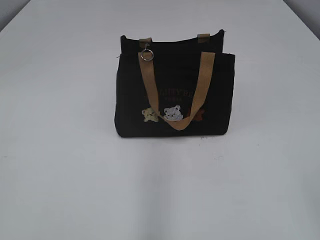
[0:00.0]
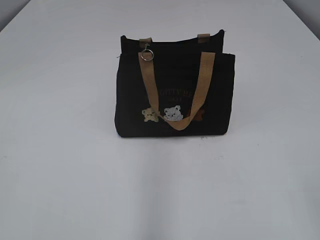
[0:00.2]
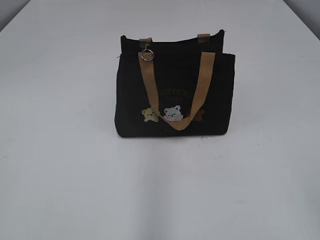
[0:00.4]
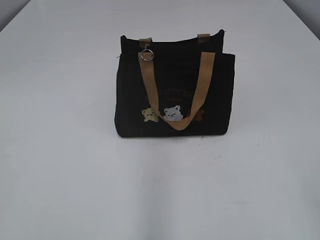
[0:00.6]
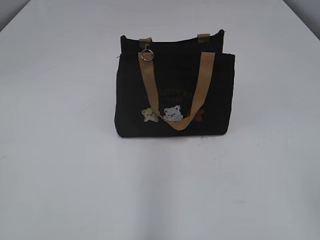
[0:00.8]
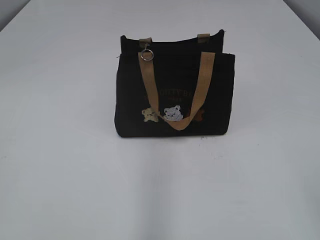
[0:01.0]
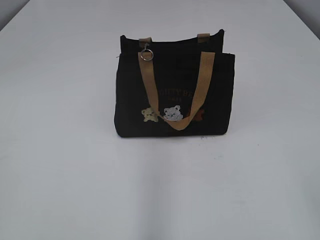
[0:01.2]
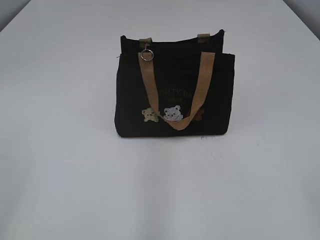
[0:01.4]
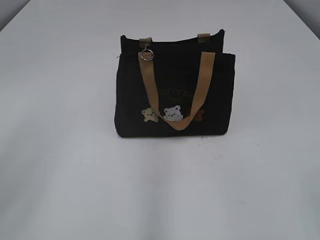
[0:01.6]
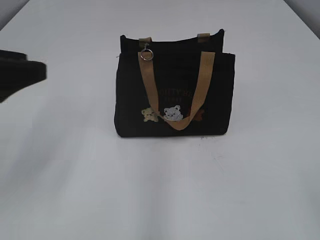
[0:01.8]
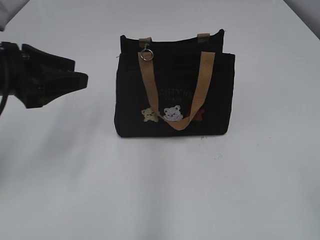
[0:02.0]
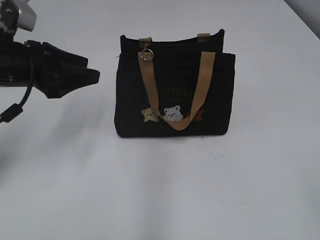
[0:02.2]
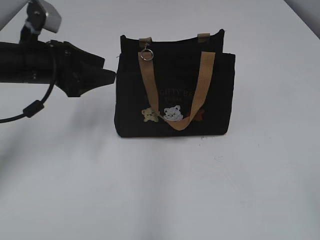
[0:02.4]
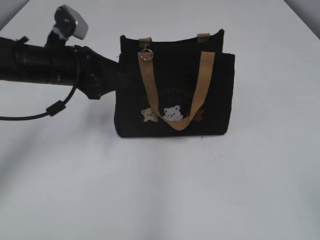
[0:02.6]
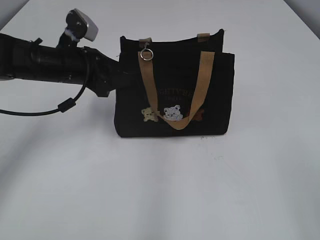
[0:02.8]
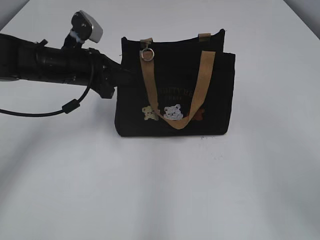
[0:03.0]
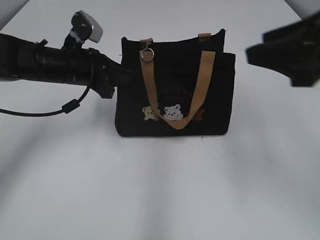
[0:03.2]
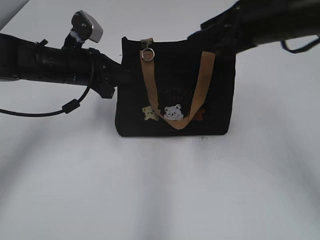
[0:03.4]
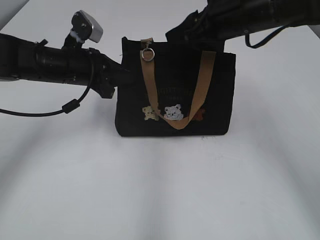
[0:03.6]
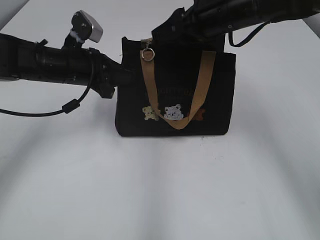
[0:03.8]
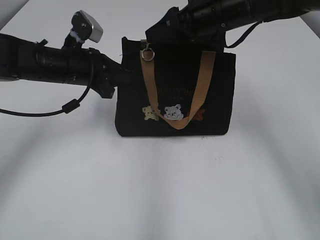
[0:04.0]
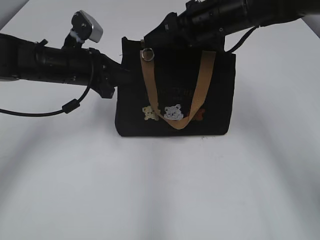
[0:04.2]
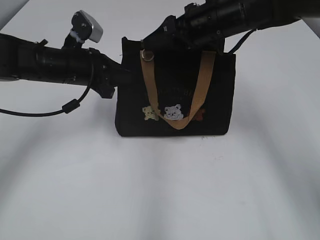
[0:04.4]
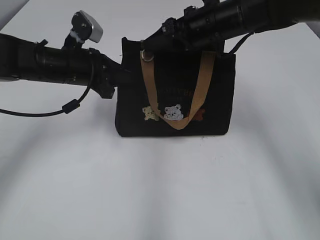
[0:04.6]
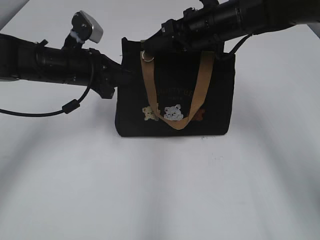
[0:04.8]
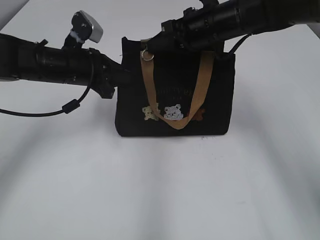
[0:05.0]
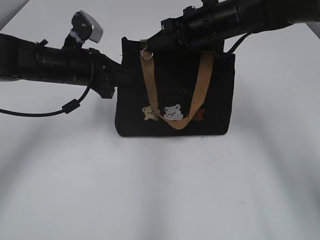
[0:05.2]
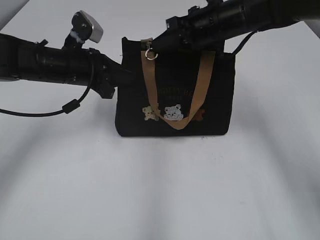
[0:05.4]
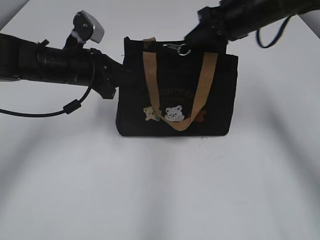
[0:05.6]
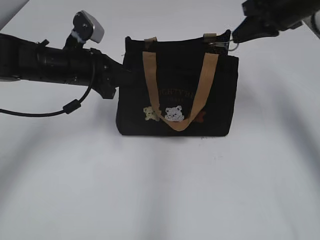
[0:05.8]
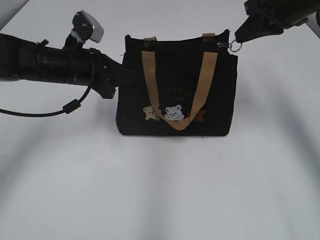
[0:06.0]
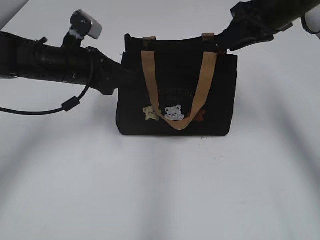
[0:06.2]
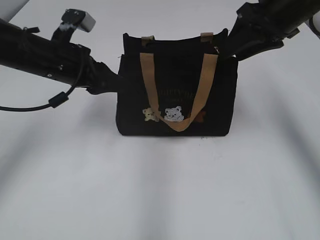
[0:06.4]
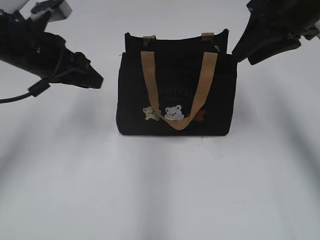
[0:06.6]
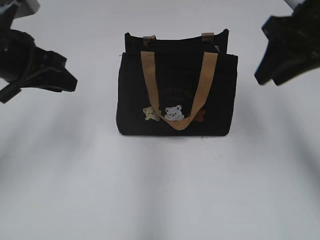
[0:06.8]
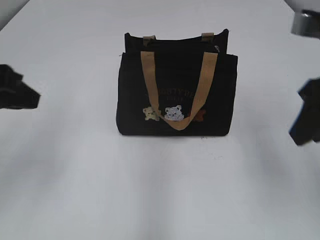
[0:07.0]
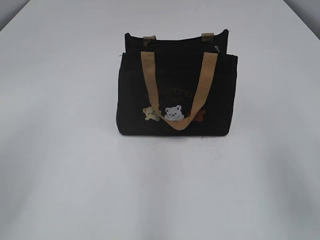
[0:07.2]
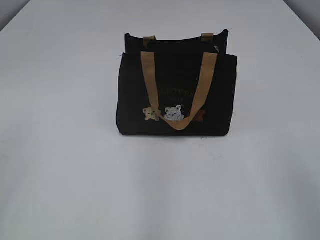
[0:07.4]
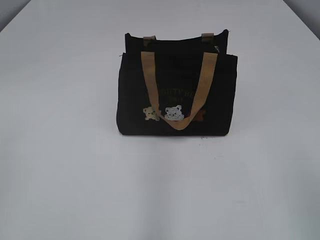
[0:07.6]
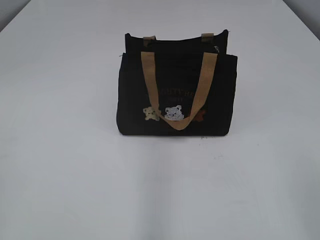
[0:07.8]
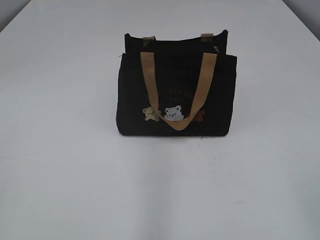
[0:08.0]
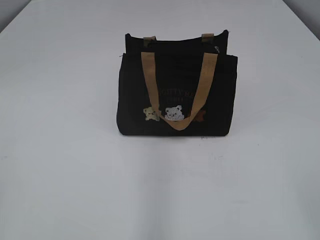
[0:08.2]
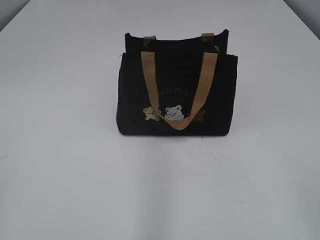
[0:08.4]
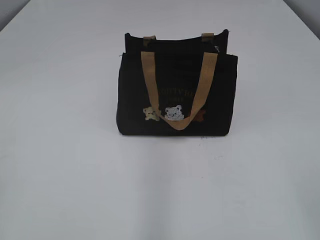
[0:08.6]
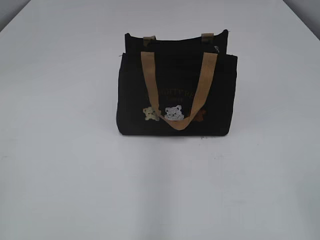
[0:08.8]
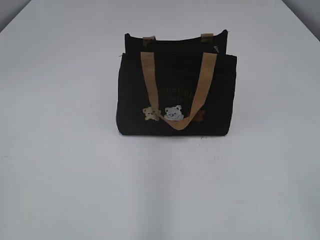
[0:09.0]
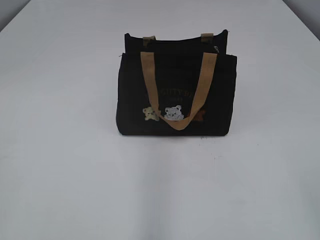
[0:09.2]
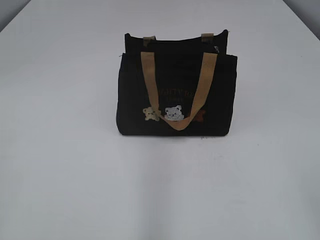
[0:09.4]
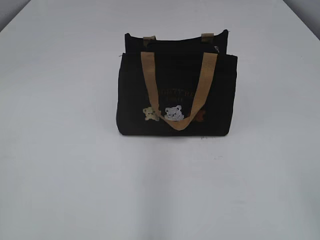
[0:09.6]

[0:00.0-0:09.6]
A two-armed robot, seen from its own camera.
Step, 0:00.0 to 0:06.2: Pull open the zipper with your right hand.
0:01.6 to 0:03.2: The left gripper is displaced forward and downward by roughly 35 cm, and closes; the right gripper heads forward, covering roughly 20 cm.
0:03.2 to 0:04.8: The right gripper moves forward and to the left, about 25 cm.
0:04.8 to 0:06.4: The right gripper heads to the right and upward, covering roughly 10 cm, and closes and opens again. Meanwhile the left gripper opens up.
0:06.4 to 0:08.0: The right gripper moves backward, approximately 40 cm, while the left gripper shifts roughly 40 cm backward and to the left.

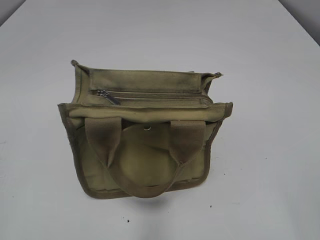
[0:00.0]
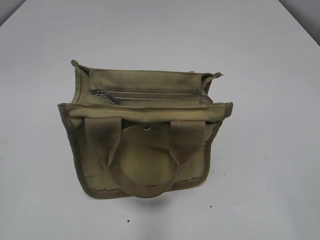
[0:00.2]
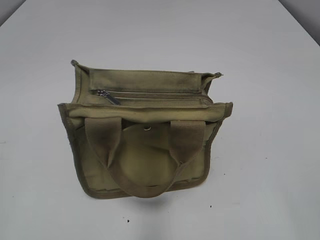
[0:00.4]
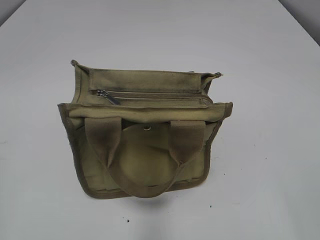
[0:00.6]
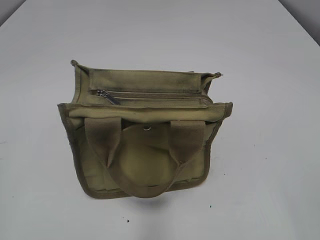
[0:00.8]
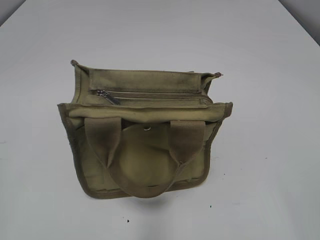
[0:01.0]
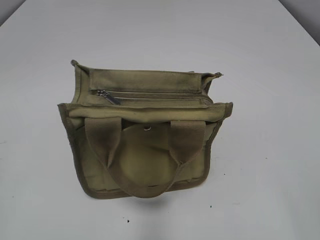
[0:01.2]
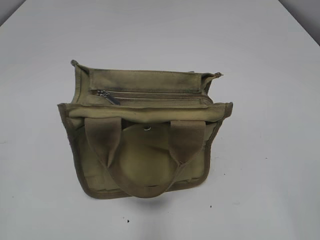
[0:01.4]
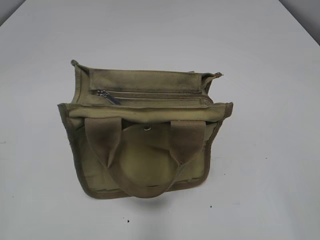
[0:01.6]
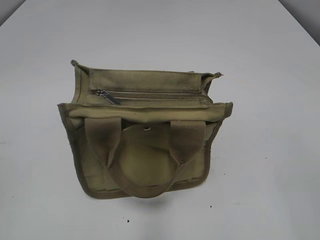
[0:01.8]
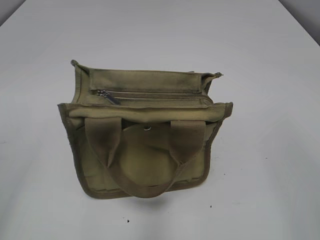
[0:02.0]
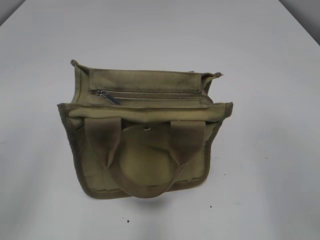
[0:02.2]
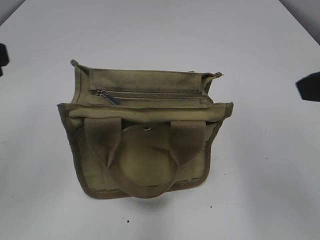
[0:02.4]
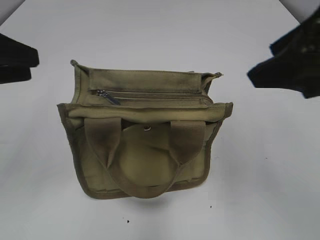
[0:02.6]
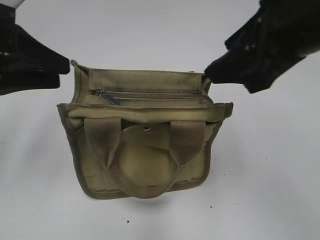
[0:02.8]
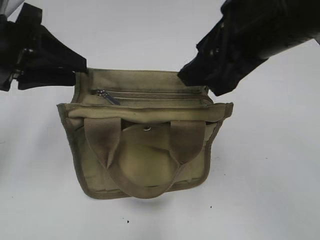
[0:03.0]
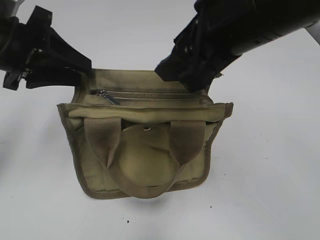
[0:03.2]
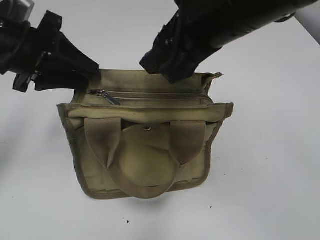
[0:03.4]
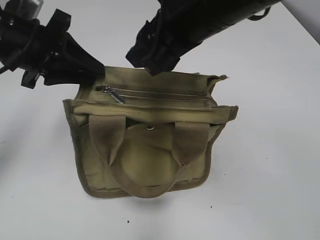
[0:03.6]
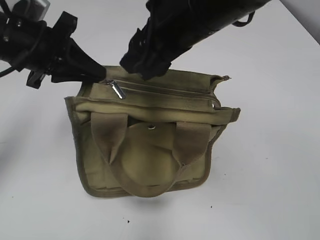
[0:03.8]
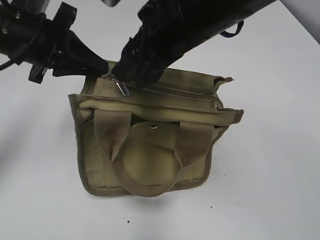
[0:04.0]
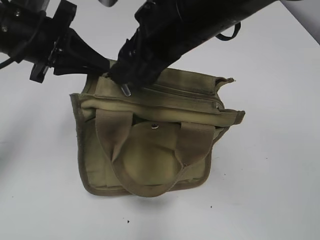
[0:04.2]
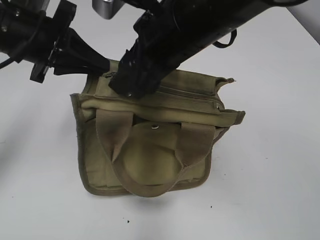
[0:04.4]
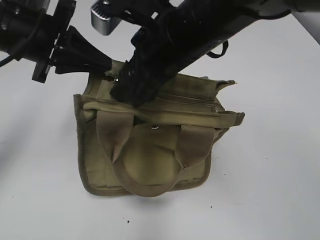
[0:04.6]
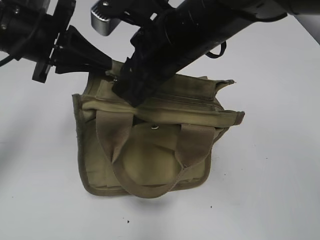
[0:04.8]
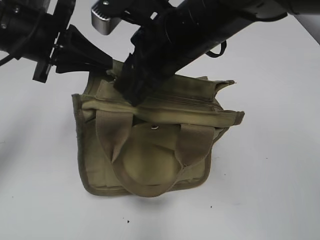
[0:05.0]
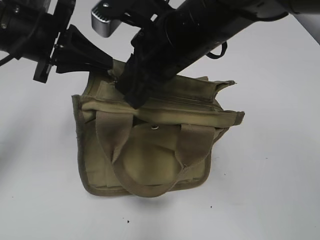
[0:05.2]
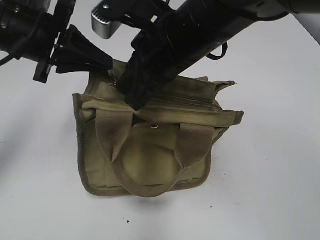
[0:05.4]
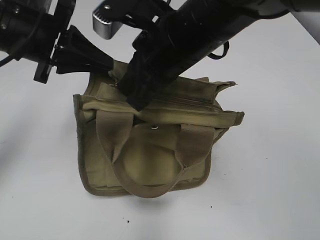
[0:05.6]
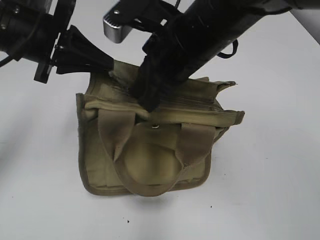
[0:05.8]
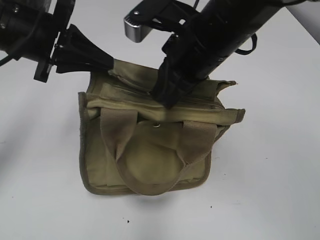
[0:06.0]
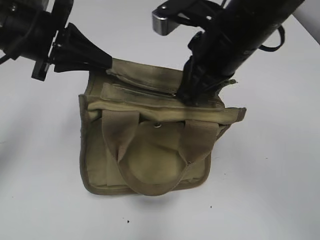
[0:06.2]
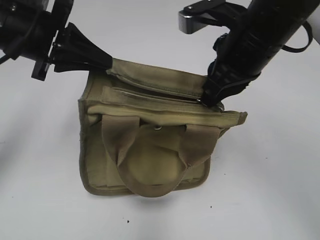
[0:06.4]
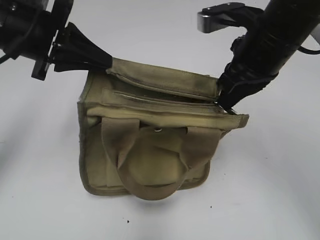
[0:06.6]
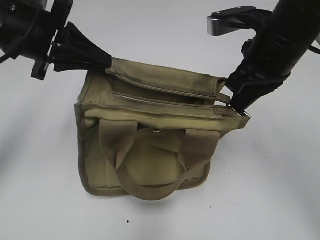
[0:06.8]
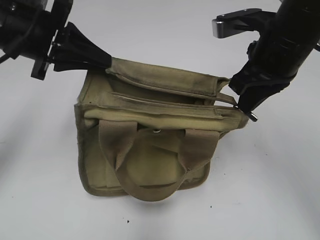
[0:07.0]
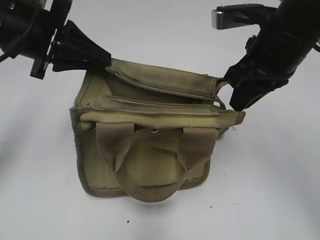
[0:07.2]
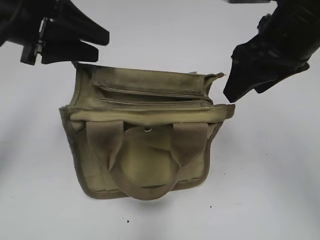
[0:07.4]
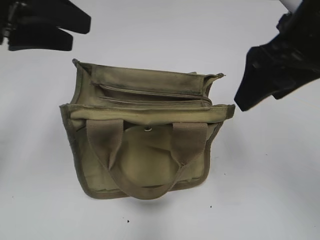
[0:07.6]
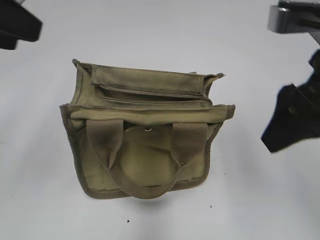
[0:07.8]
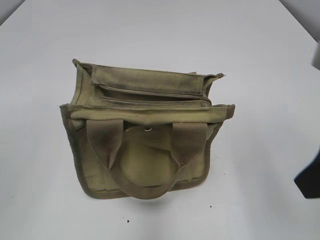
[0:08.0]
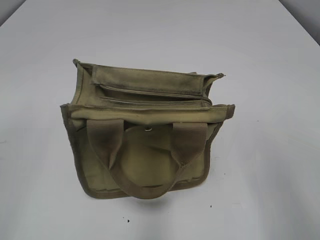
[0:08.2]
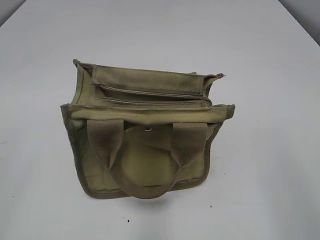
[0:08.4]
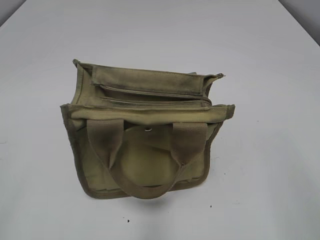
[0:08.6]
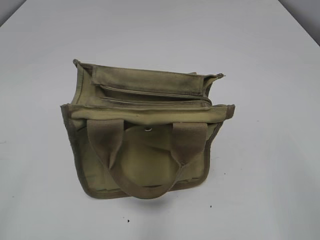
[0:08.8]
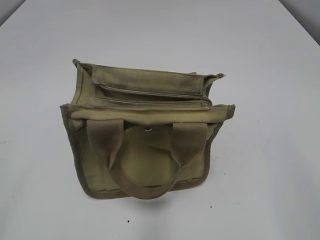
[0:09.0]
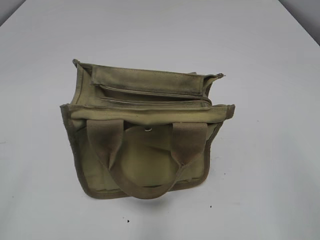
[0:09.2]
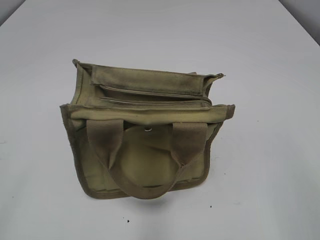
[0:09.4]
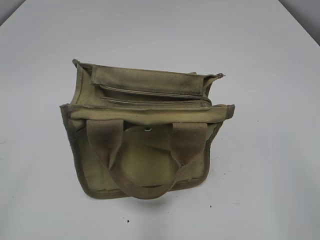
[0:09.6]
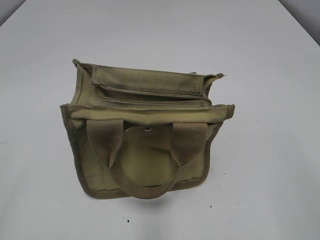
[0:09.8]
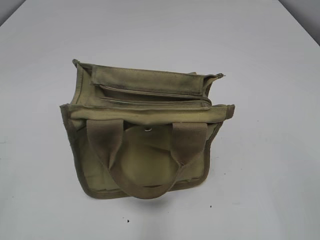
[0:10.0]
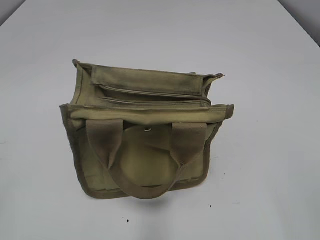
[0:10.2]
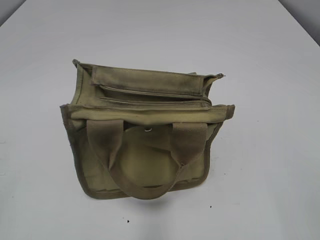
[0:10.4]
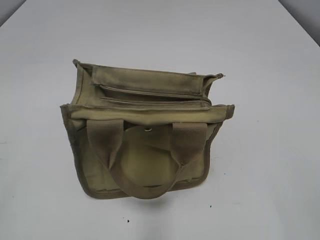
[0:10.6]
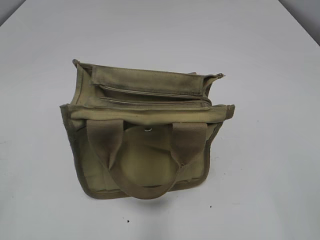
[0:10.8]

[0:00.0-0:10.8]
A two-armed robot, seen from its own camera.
Step, 0:00.0 to 0:07.0: Pull open the zipper with your right hand.
0:01.6 to 0:03.0: The right gripper is displaced forward and to the left by some 30 cm, while the left gripper goes about 30 cm forward and to the right.
0:03.0 to 0:04.6: The left gripper changes place by approximately 5 cm, and closes up, while the right gripper goes roughly 10 cm to the left, forward and downward.
0:04.6 to 0:06.2: The right gripper moves to the right, roughly 5 cm, and closes its fingers.
0:06.2 to 0:07.8: The left gripper moves upward and backward, about 10 cm, and opens its fingers; the right gripper is displaced to the right and backward by approximately 15 cm, and opens its fingers.
0:07.8 to 0:09.2: The left gripper shifts approximately 25 cm backward and to the left, while the right gripper heads backward and to the right, covering about 20 cm.
